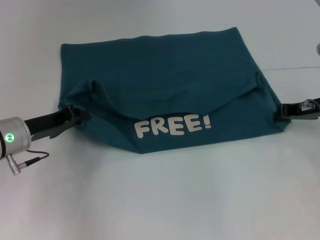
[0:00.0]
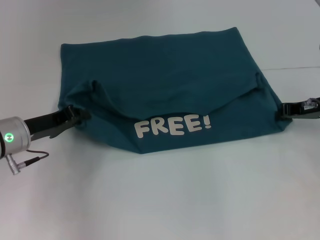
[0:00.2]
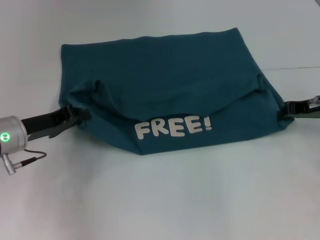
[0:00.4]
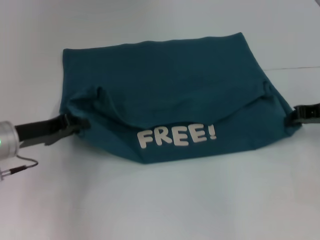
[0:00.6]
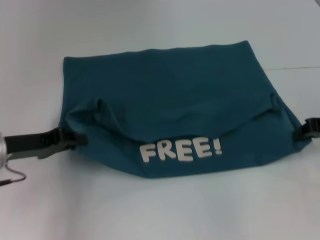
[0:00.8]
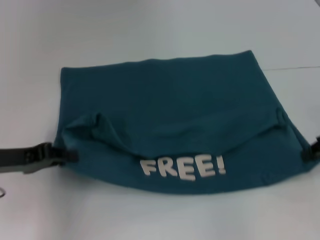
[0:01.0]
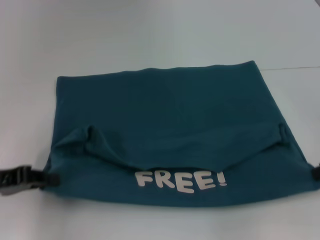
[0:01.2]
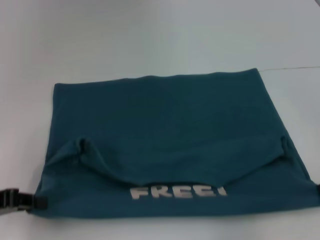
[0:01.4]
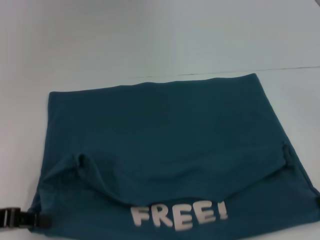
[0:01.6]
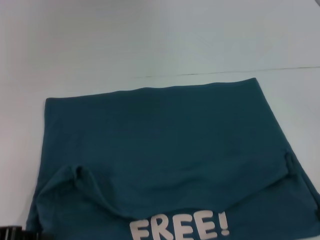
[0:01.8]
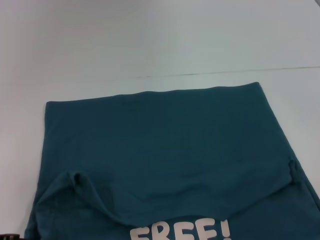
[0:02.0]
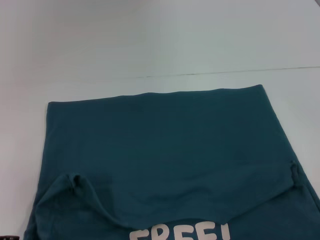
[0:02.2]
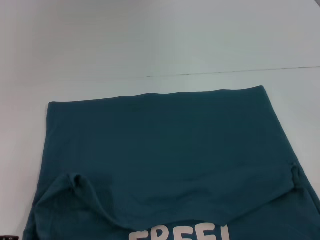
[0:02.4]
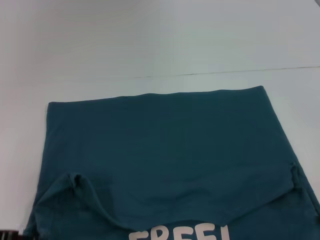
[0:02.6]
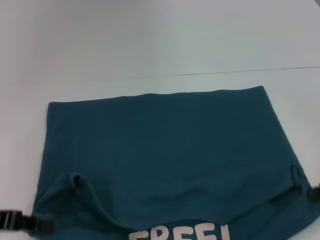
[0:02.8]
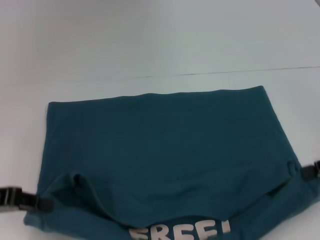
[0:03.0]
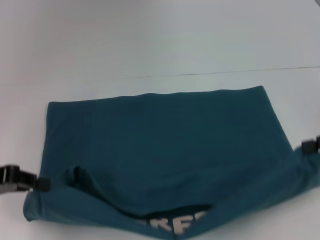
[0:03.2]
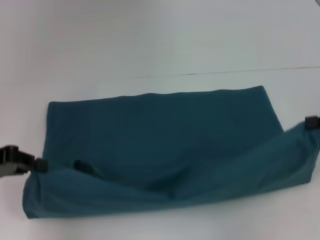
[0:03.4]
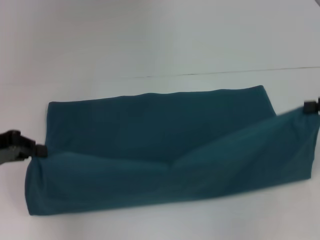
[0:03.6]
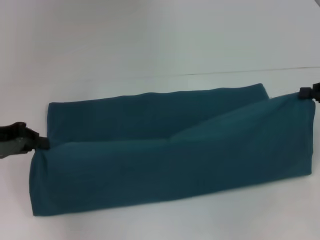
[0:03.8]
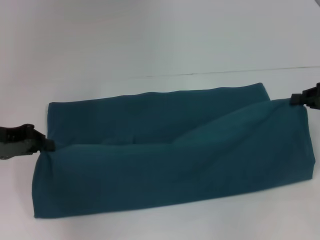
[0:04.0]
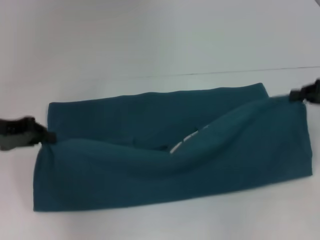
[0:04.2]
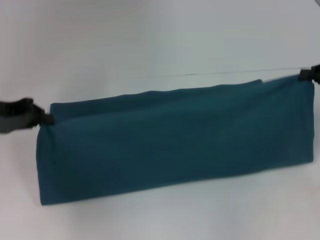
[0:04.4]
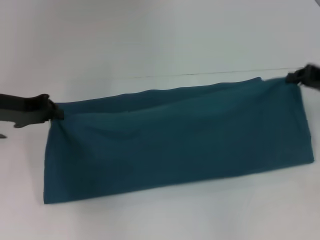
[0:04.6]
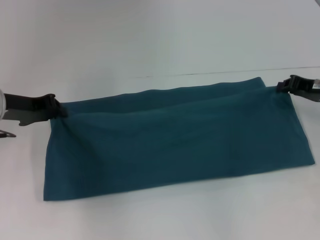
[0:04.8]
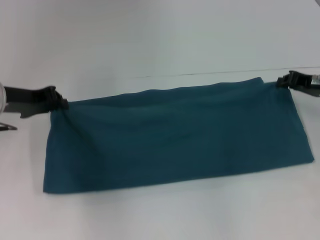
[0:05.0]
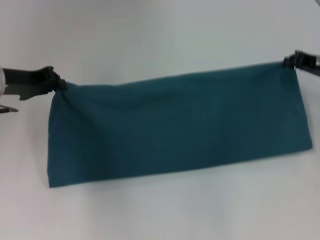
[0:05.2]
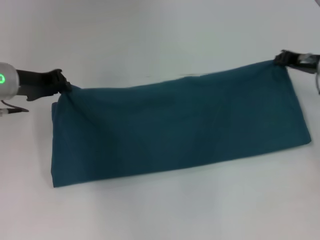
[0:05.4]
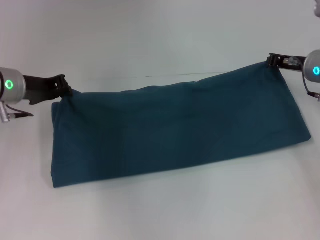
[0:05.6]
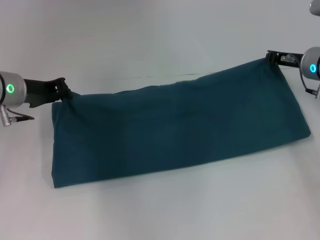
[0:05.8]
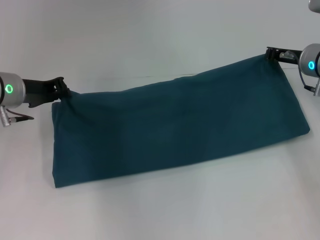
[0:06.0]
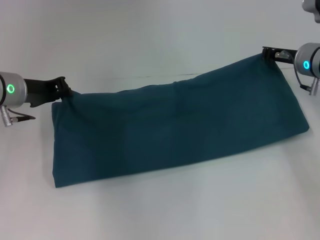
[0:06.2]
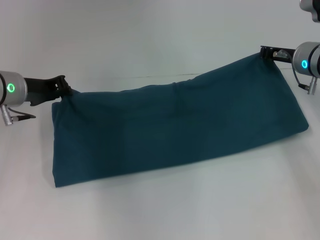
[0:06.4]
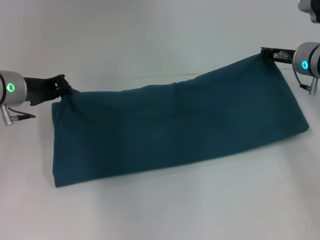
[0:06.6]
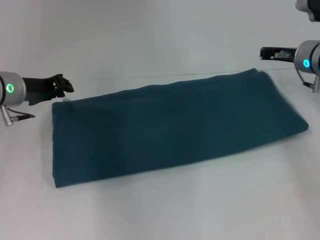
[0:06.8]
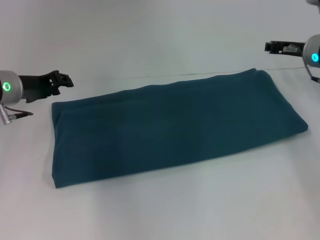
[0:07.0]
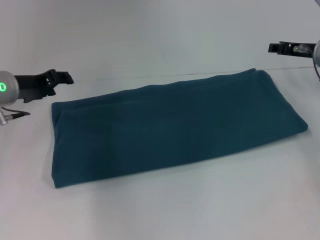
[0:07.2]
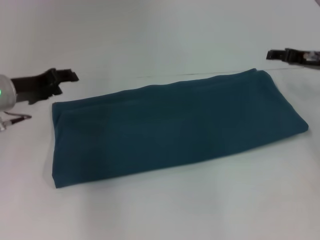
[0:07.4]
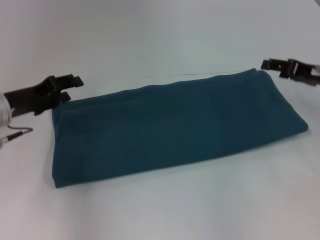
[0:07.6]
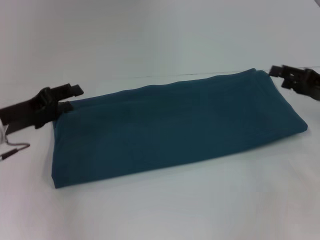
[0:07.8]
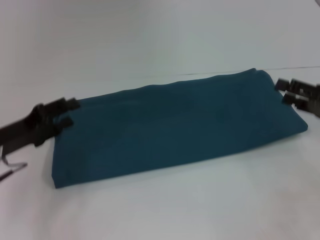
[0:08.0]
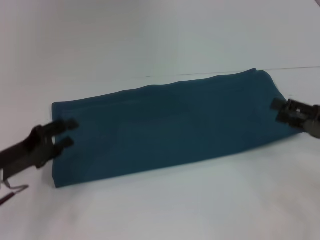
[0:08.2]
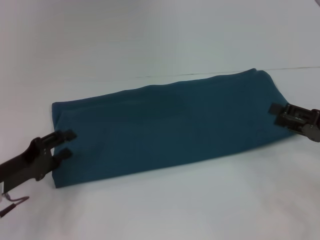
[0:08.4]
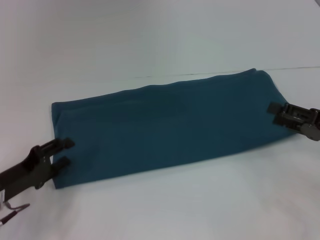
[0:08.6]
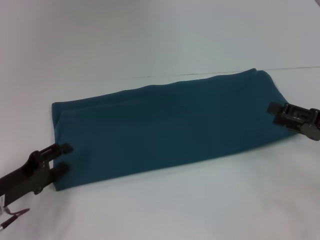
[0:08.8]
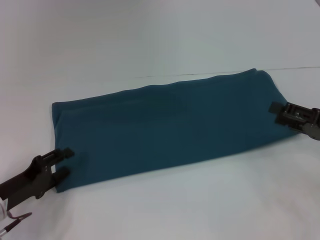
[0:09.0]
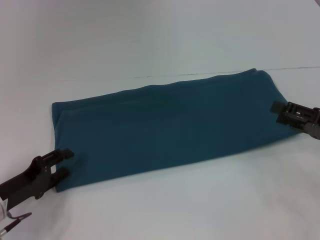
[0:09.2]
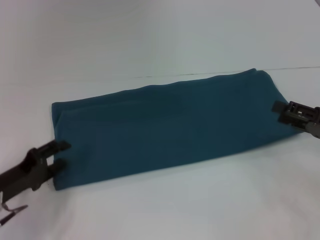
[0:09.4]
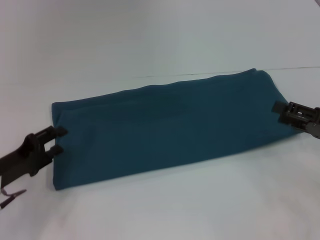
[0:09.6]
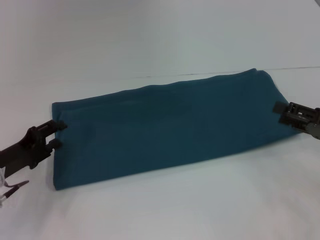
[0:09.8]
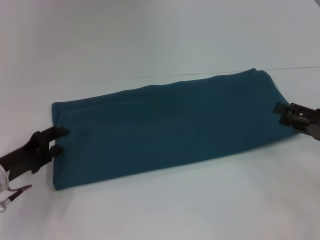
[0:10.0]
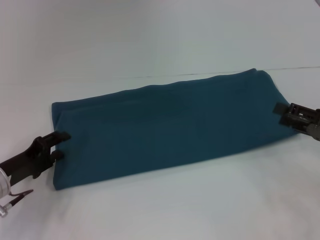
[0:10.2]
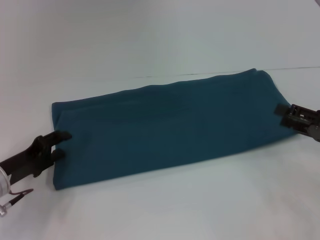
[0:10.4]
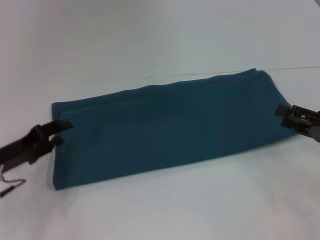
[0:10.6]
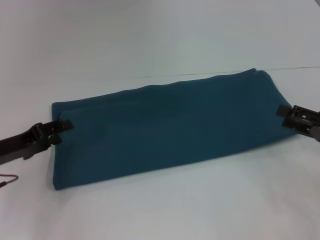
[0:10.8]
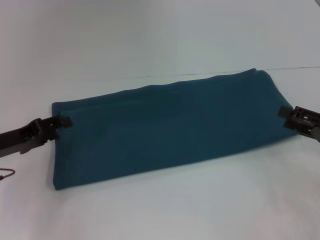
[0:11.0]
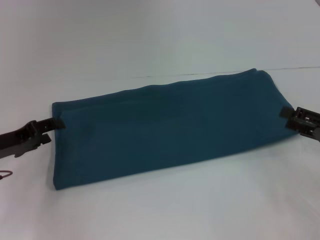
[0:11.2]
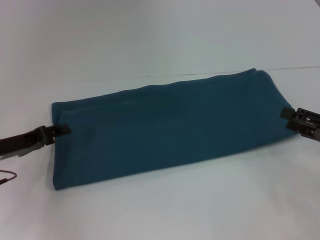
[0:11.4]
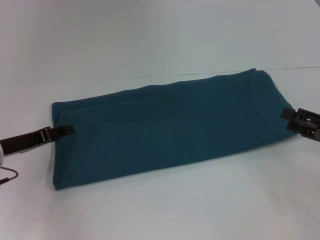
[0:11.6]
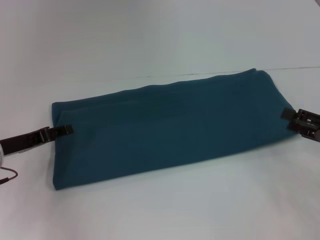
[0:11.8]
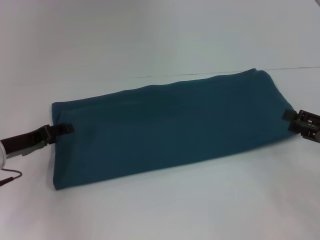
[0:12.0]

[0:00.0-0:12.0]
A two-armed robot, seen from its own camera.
Step, 0:01.6 to 0:06.8: Fold the clothes to the right.
0:00.0 to 0:01.6: The right gripper heads backward and to the right, covering approximately 15 cm, while the left gripper moves backward and to the left, roughly 15 cm.
0:01.6 to 0:03.0: The grippers make only small movements.
0:03.0 to 0:04.4: The two grippers go approximately 10 cm forward.
0:04.4 to 0:06.0: The right gripper goes approximately 15 cm to the left and forward. The left gripper travels to the right and forward by roughly 10 cm.
0:06.0 to 0:07.6: The left gripper changes place by about 5 cm, and opens its fingers, while the right gripper is displaced backward by approximately 5 cm, and opens up.
0:07.6 to 0:09.0: The left gripper goes about 15 cm downward and backward, while the right gripper goes approximately 10 cm backward.
0:09.0 to 0:10.4: The grippers move only a little.
0:10.4 to 0:12.0: The left gripper changes place by about 5 cm.

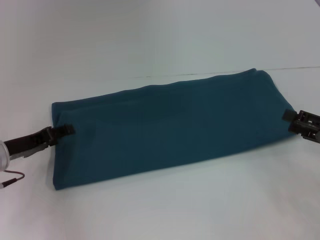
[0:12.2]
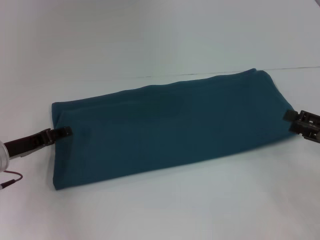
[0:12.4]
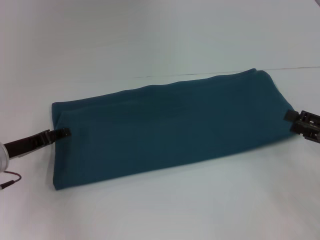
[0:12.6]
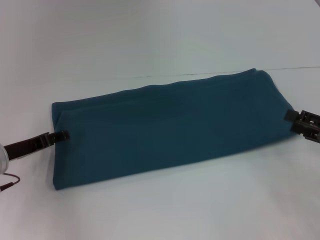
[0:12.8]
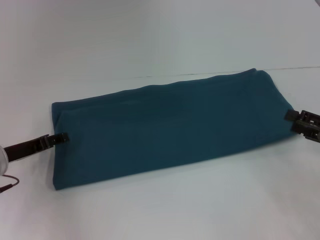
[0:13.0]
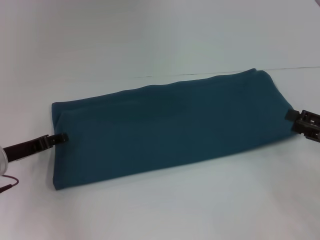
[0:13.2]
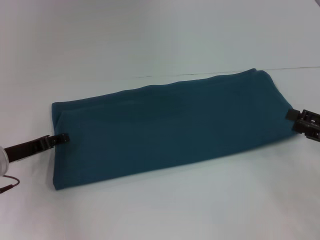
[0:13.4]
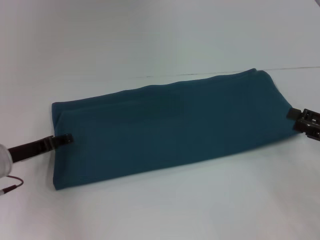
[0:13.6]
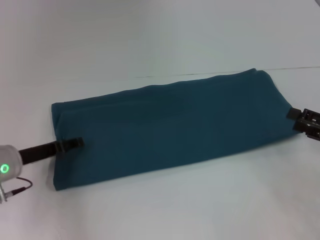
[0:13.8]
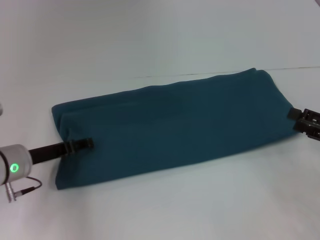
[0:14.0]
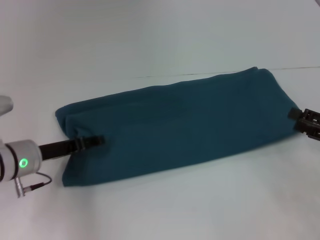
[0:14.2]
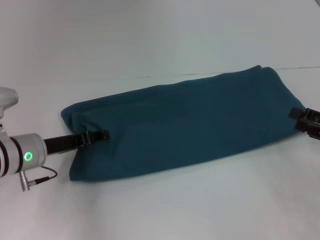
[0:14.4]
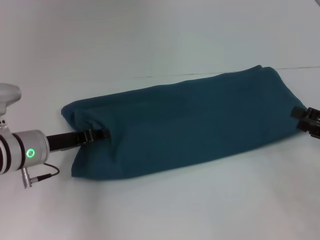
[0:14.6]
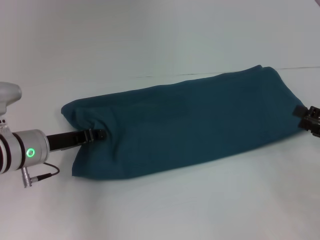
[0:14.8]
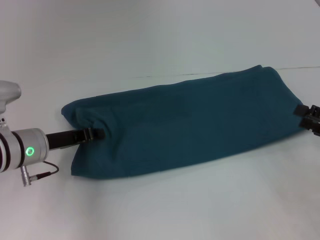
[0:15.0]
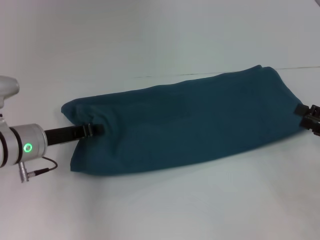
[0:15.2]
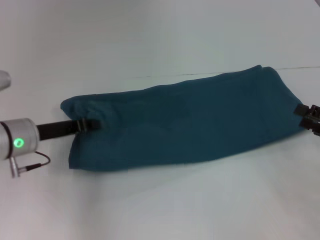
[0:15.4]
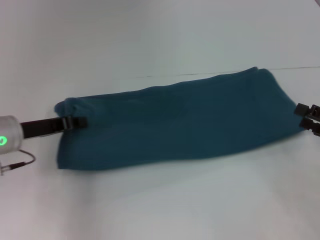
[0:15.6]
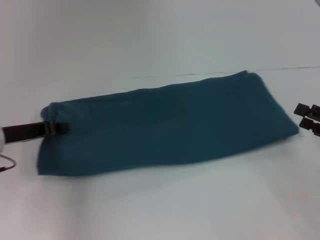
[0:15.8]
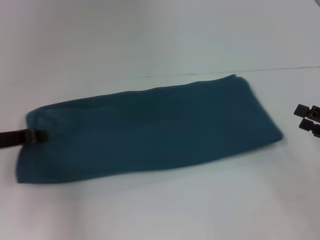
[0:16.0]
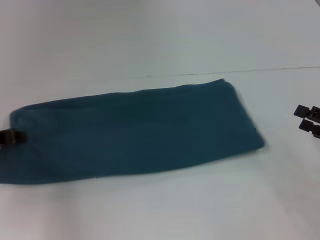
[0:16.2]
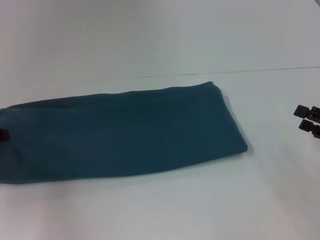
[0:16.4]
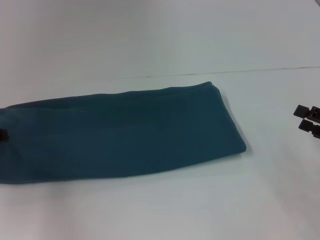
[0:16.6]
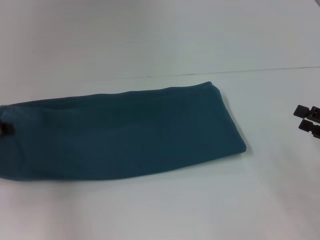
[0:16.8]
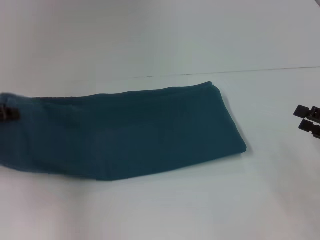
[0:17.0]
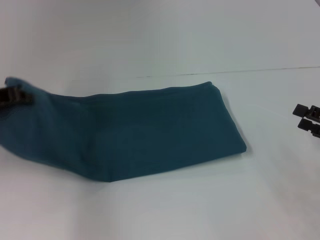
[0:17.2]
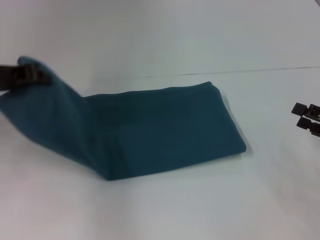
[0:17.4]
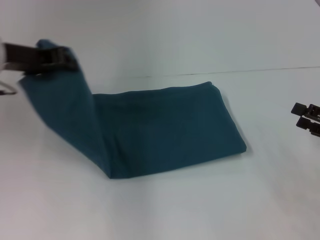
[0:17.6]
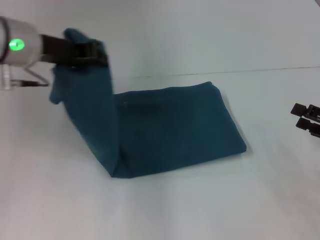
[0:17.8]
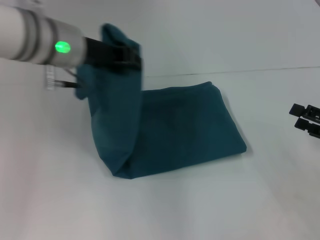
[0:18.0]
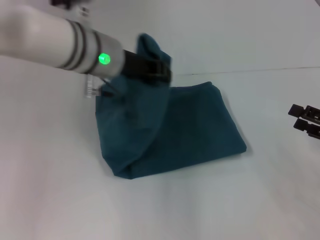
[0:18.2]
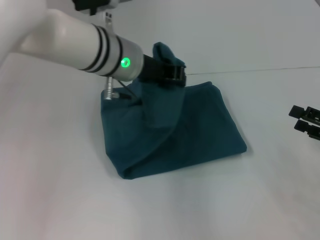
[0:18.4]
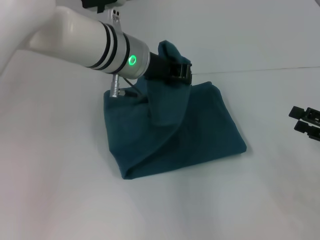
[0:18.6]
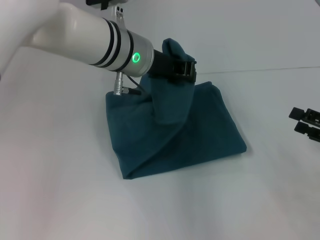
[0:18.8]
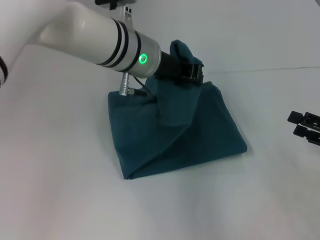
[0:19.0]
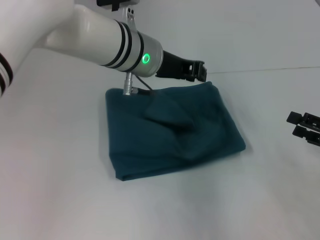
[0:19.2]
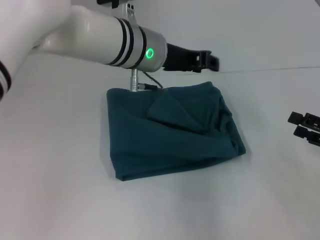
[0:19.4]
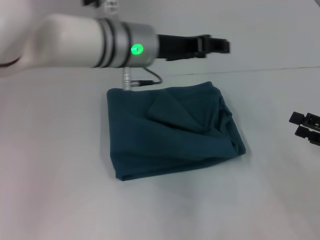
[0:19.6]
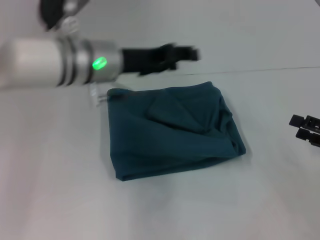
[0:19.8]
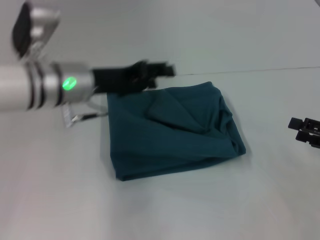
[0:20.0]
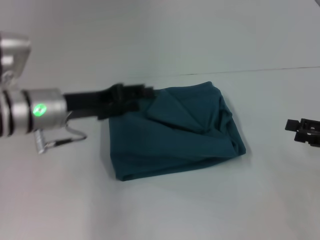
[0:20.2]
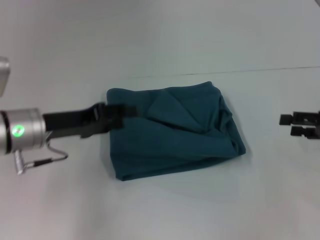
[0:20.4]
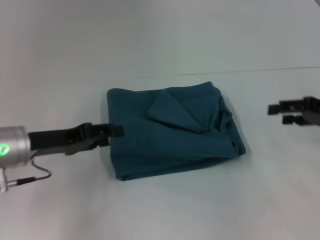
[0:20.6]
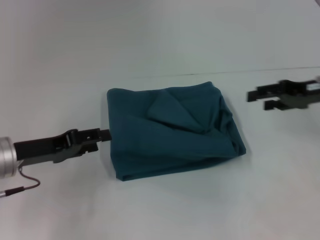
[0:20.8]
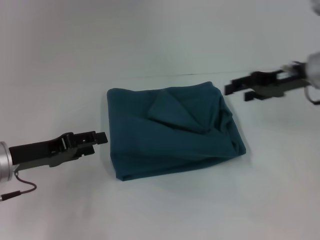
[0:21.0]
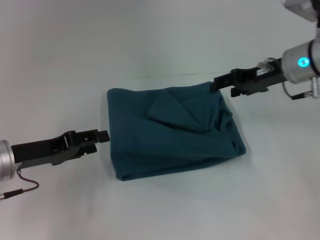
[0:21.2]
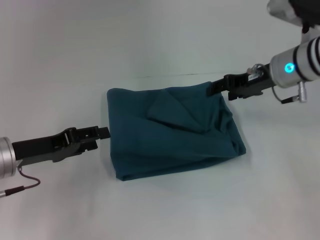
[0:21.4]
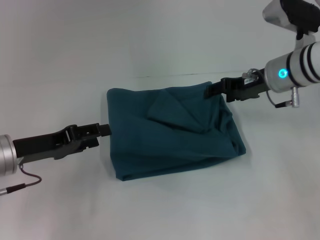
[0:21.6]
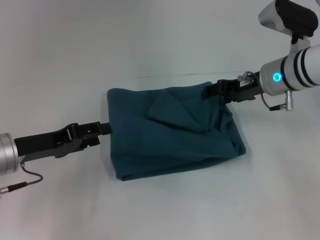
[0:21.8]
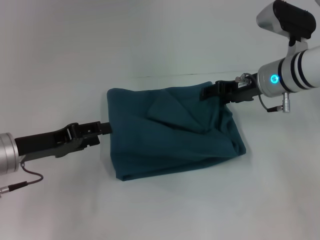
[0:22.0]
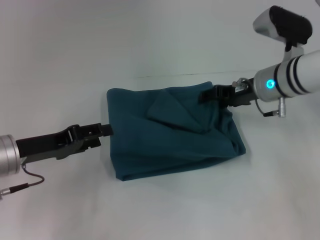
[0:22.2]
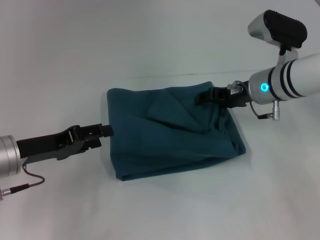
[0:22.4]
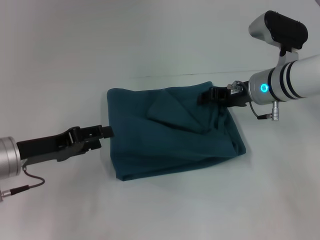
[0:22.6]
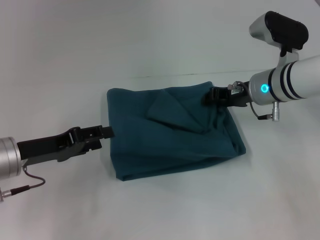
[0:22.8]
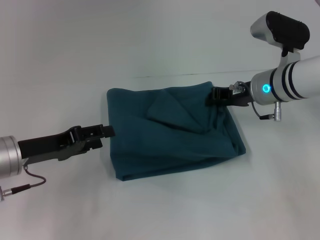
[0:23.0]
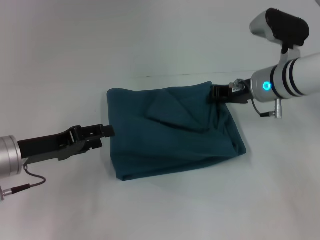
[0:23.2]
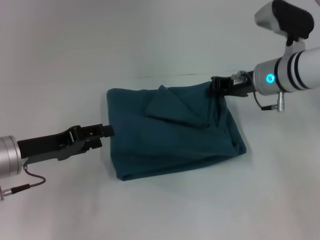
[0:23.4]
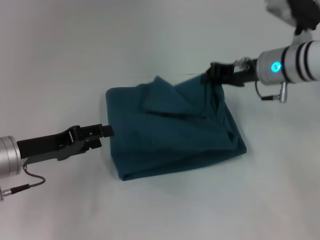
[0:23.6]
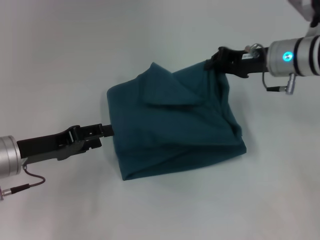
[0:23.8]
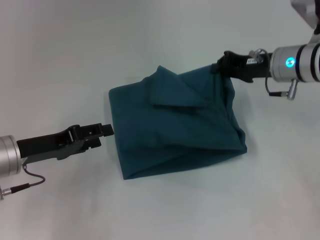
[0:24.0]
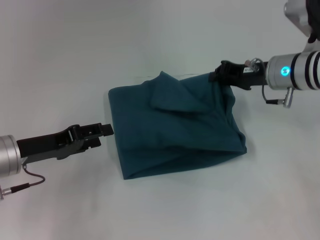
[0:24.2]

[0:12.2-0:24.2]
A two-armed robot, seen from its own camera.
Step, 0:12.2 to 0:19.2: Fold the clothes to the left.
0:12.2 to 0:13.8: There are only small adjustments of the grippers.
0:13.8 to 0:15.2: The left gripper moves roughly 5 cm, and closes its fingers.
0:15.2 to 0:16.6: The left gripper moves to the left, approximately 10 cm.
0:16.6 to 0:18.2: The left gripper moves to the right and upward, approximately 30 cm.
0:18.2 to 0:19.8: The left gripper opens.
0:19.8 to 0:21.2: The right gripper shifts approximately 25 cm forward, to the left and upward, while the left gripper shifts roughly 20 cm to the left, downward and backward.
0:21.2 to 0:22.6: The right gripper travels downward by some 5 cm.
0:22.6 to 0:24.2: The right gripper closes its fingers.
